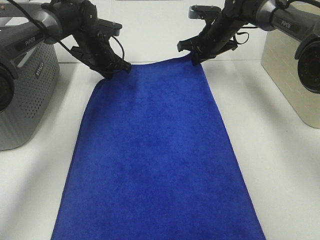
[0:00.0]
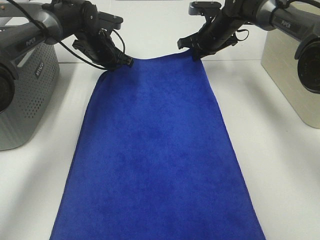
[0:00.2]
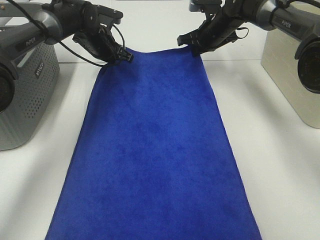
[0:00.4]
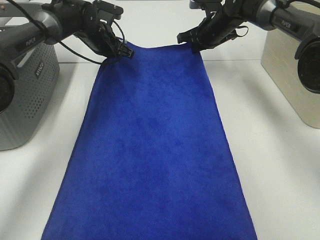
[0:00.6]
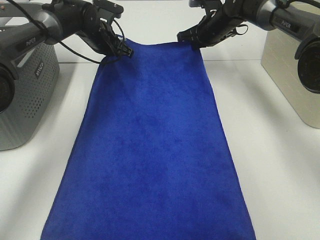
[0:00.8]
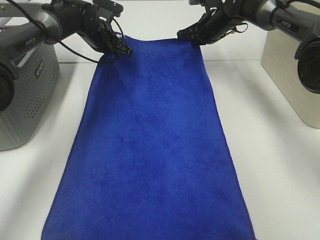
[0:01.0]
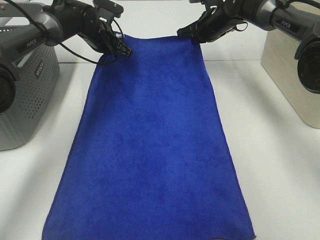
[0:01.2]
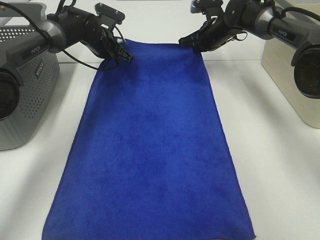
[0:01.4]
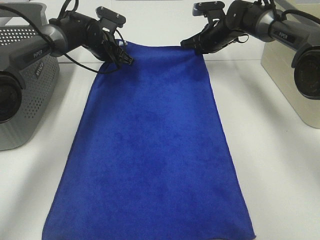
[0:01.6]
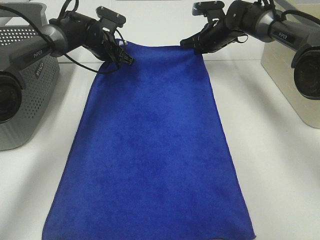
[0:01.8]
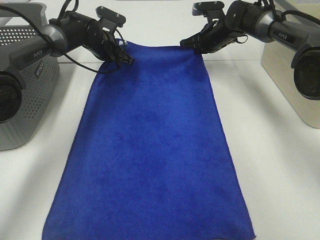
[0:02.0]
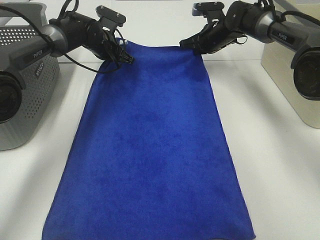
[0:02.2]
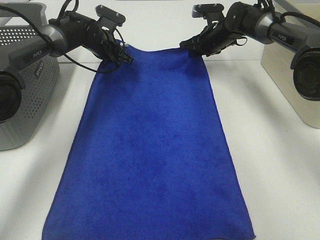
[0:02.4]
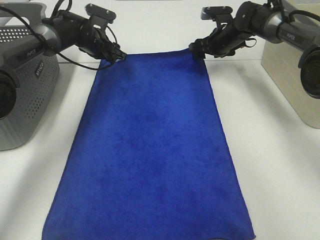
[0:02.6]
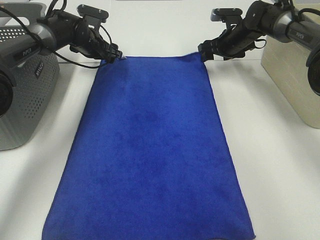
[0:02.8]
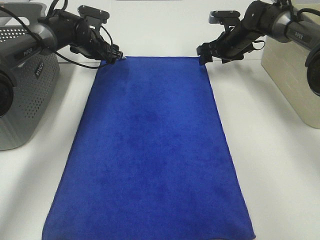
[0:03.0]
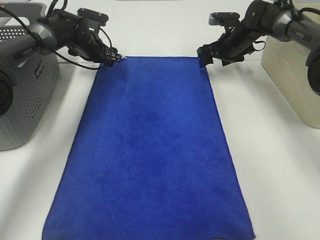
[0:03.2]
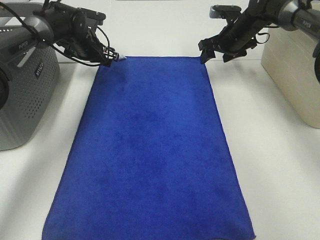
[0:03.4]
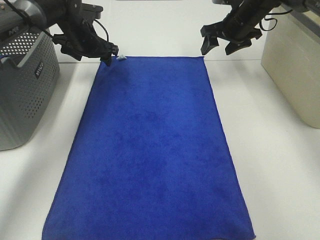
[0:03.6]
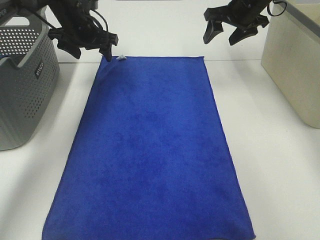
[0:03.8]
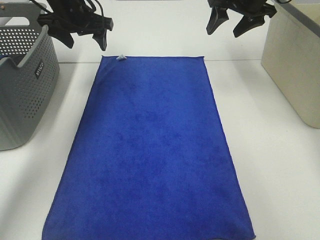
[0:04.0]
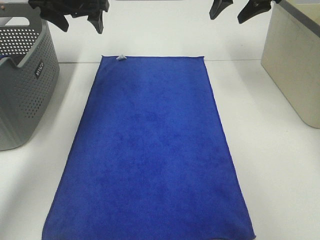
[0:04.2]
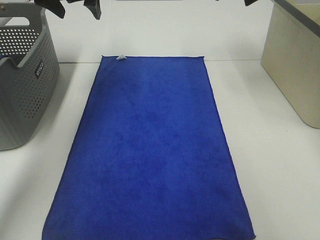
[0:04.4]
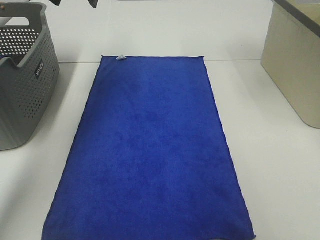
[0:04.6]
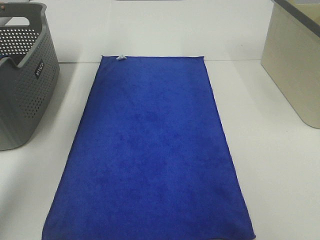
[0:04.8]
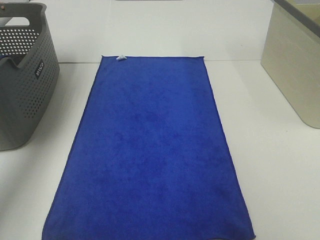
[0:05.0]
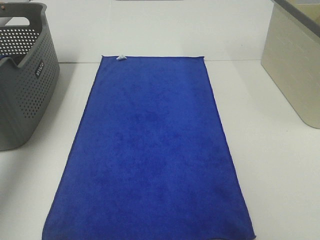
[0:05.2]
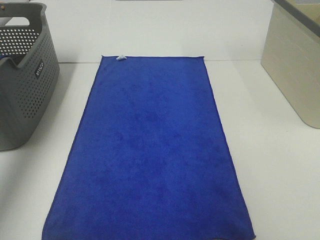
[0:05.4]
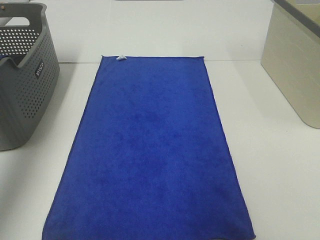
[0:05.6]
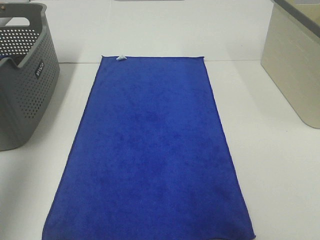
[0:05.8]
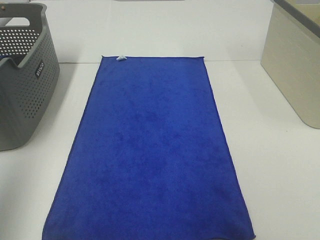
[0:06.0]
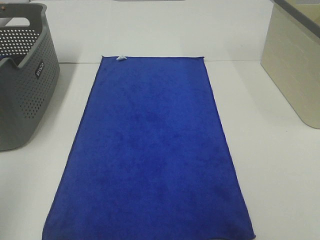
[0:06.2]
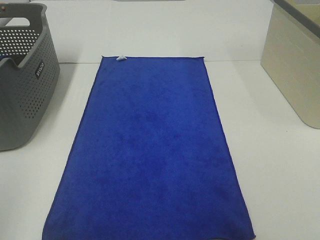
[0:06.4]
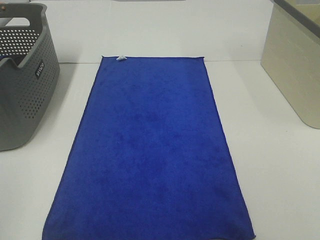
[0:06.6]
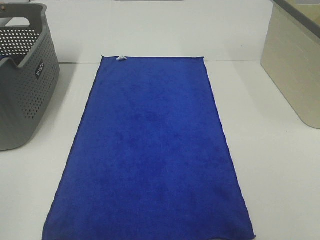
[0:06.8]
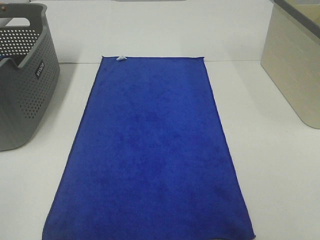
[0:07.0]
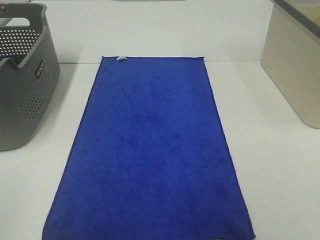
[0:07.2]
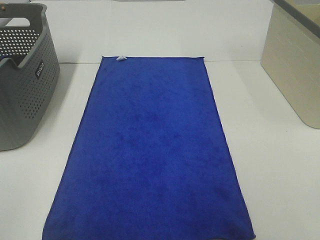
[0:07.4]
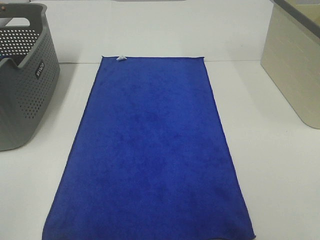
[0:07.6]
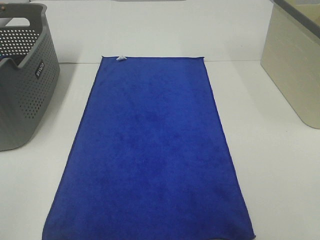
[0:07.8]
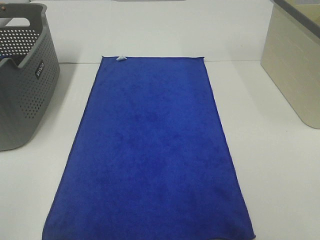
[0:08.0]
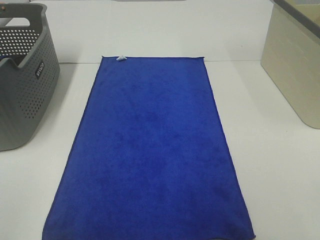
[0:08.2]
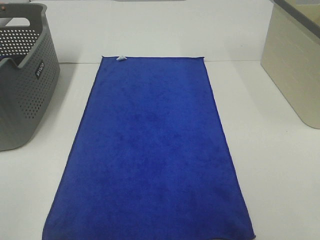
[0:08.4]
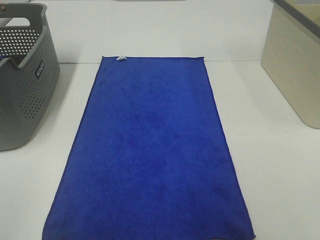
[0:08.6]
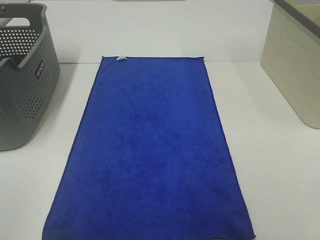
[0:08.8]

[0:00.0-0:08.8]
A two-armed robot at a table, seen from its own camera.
Task of the whole recording: Remove the towel and place it.
0:01.4 to 0:03.0: The right gripper shifts by some 5 cm, and opens its fingers; the left gripper opens up.
0:03.0 to 0:04.4: The grippers both shift upward and backward by approximately 20 cm.
0:04.4 to 0:05.8: The left gripper heads backward and to the left, covering some 35 cm. Meanwhile the right gripper goes roughly 35 cm backward.
0:05.8 to 0:07.4: The left gripper is displaced backward and downward by approximately 25 cm.
0:07.4 to 0:08.8: The two grippers keep their place.
